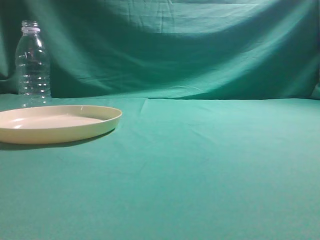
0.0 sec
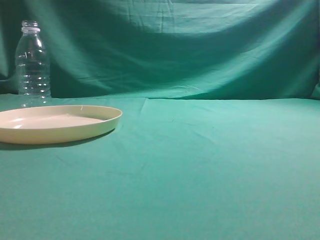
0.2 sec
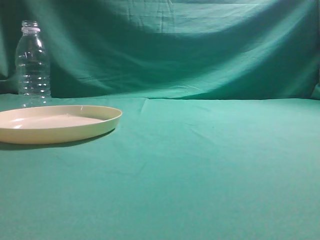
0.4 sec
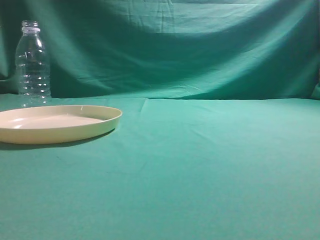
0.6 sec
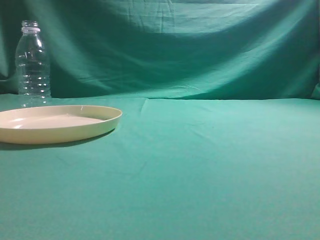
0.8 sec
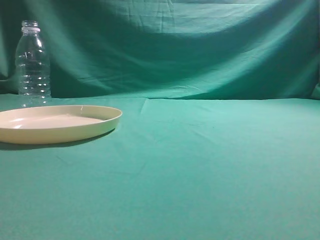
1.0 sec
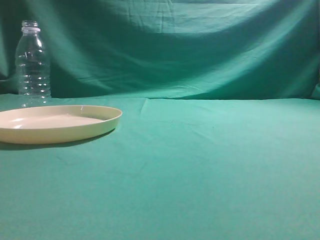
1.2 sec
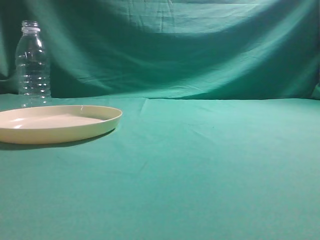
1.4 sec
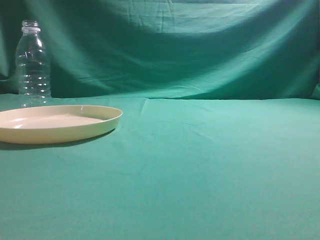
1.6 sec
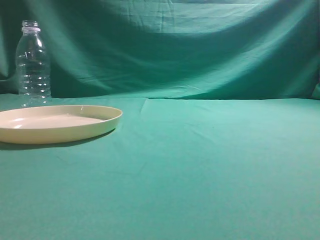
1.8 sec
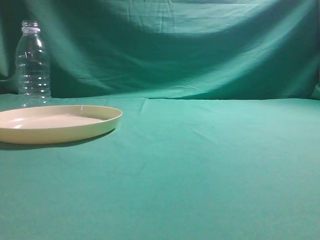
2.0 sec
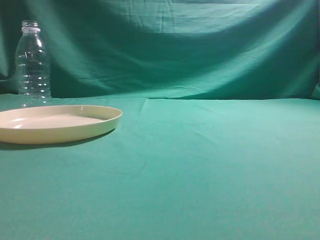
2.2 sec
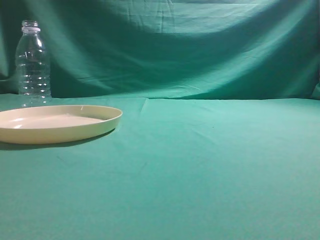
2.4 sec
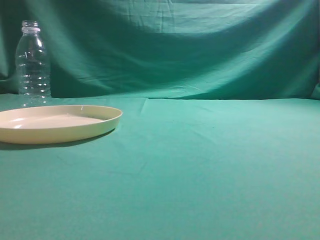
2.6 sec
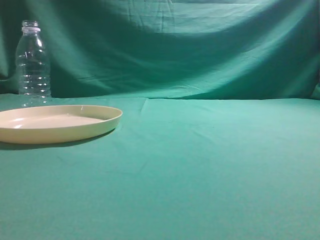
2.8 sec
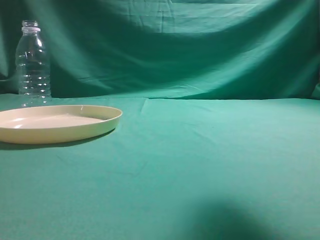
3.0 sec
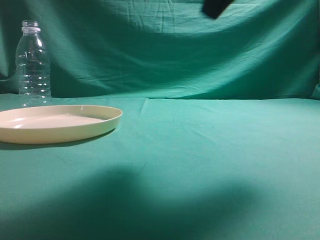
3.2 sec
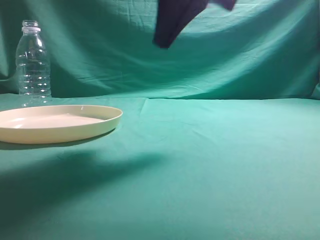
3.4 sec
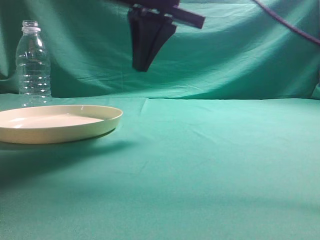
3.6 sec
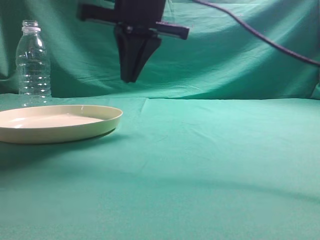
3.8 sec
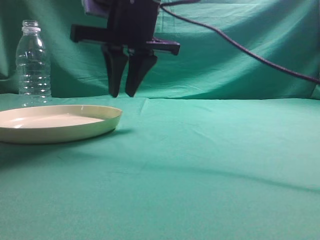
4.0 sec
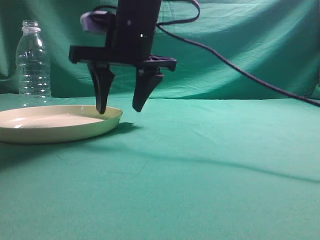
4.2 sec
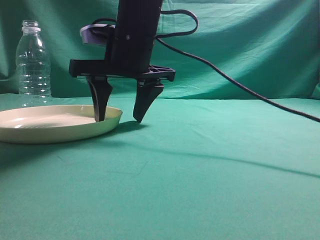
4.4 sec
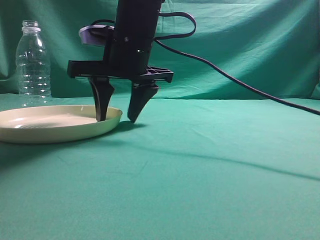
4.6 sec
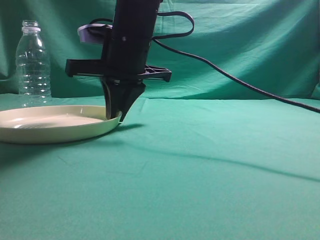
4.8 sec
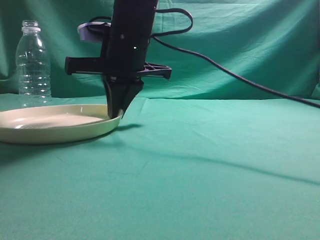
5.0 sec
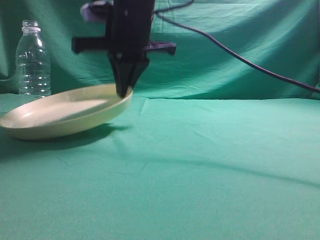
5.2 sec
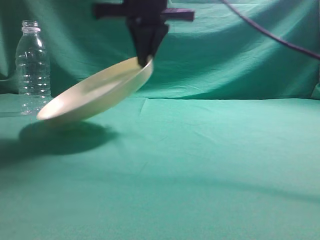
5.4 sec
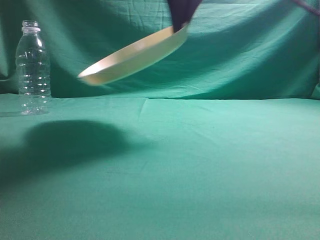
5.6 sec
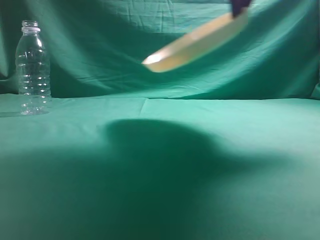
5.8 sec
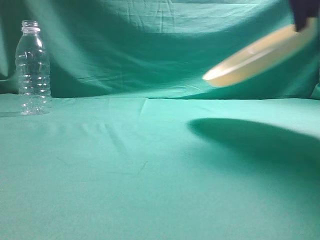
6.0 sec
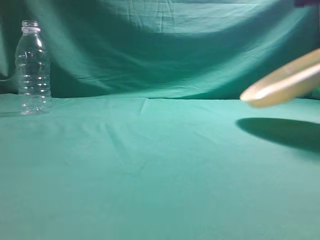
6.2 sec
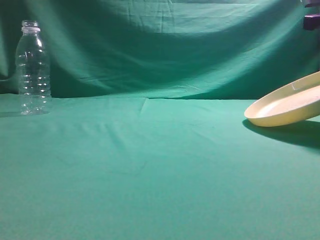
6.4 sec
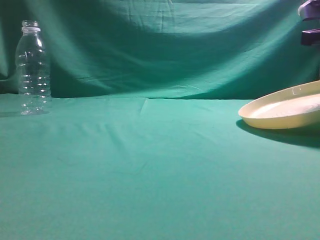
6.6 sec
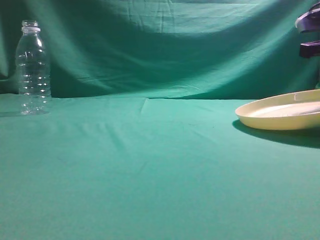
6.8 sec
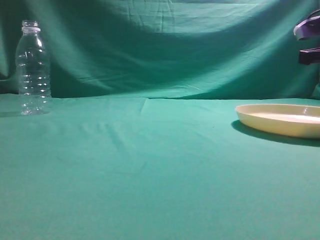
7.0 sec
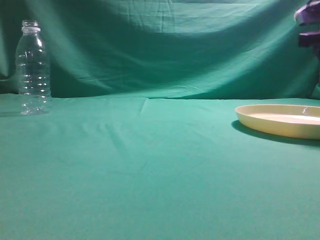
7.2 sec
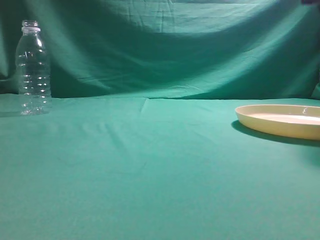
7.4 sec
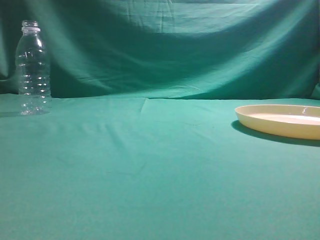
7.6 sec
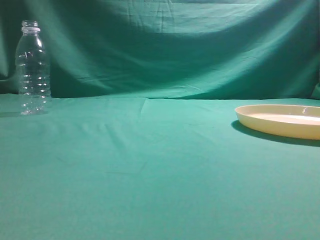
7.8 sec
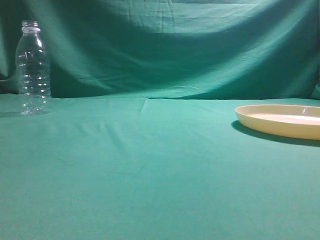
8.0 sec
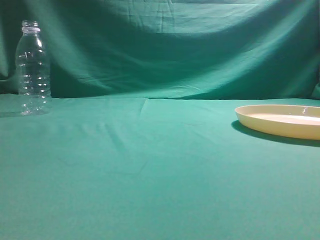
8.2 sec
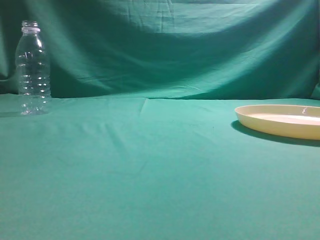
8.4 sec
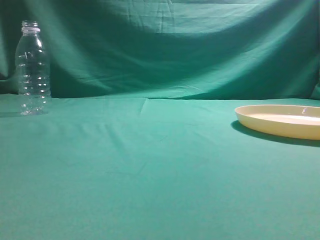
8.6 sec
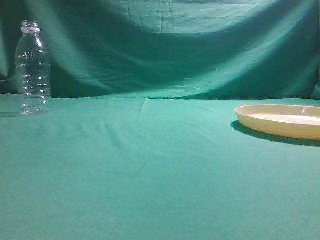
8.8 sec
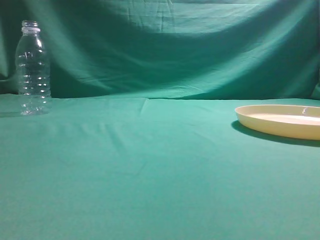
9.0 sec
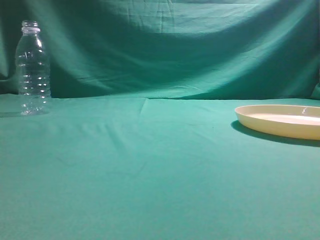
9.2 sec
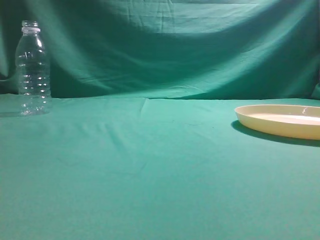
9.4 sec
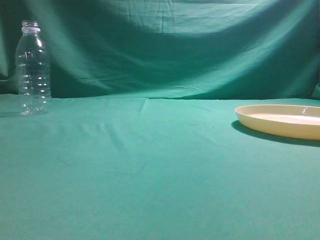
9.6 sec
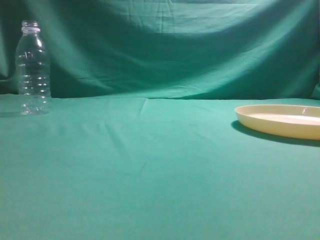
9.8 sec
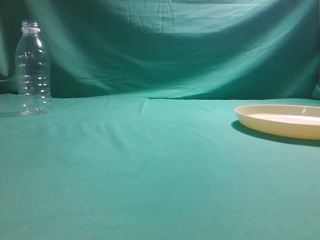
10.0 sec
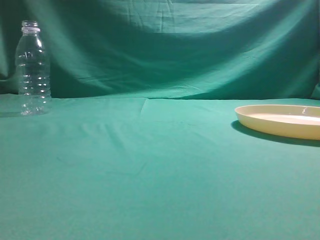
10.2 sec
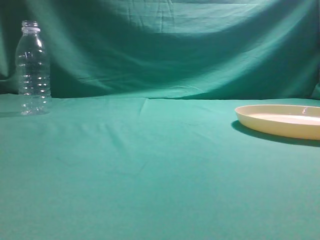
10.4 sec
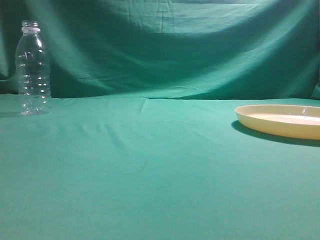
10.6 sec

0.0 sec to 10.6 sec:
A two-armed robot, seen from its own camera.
Step, 0.0 sec to 5.4 sec: Pick the container that can hold fruits.
Step, 5.6 sec to 8.0 sec: Move the picked object to the right side of the table.
1.6 sec to 3.0 sec: The right gripper heads forward, to the left and upward, covering some 20 cm.
3.0 sec to 4.6 sec: The right gripper is displaced to the left, forward and downward by about 30 cm, and opens up.
4.6 sec to 6.0 sec: The right gripper heads to the right and upward, covering about 30 cm, and closes its fingers.
6.0 sec to 7.6 sec: The right gripper shifts some 10 cm to the right, travels downward and back again, about 10 cm each way, and opens, then closes once more.
